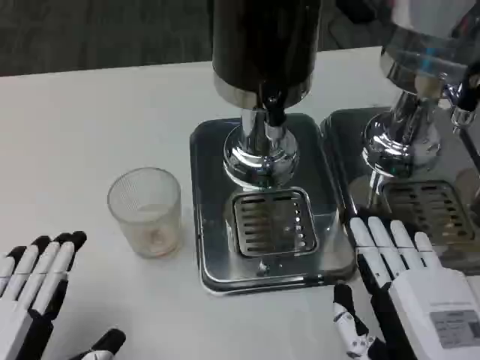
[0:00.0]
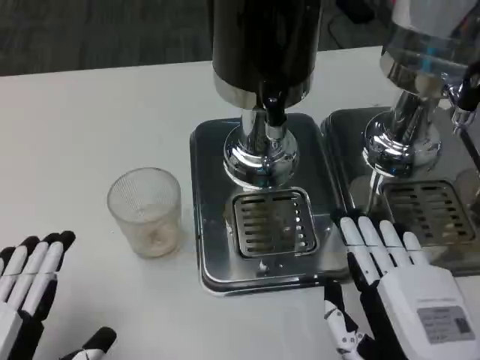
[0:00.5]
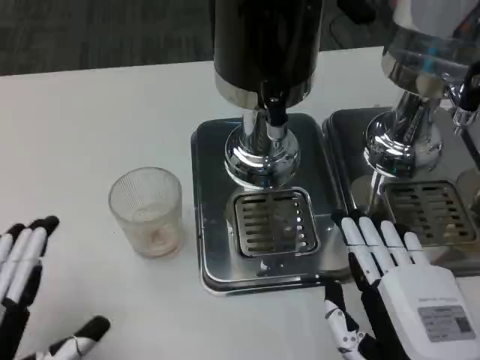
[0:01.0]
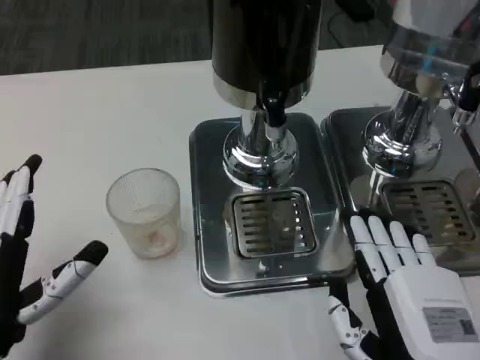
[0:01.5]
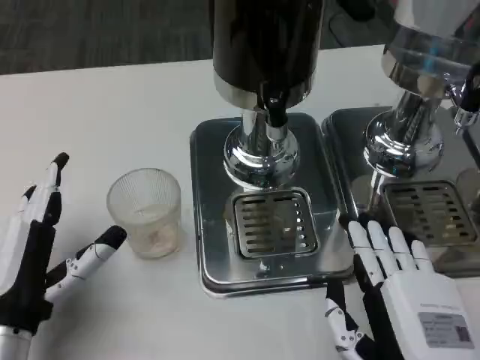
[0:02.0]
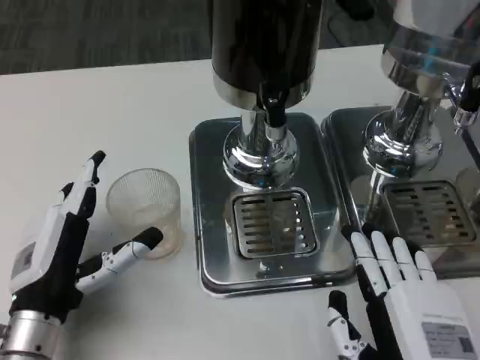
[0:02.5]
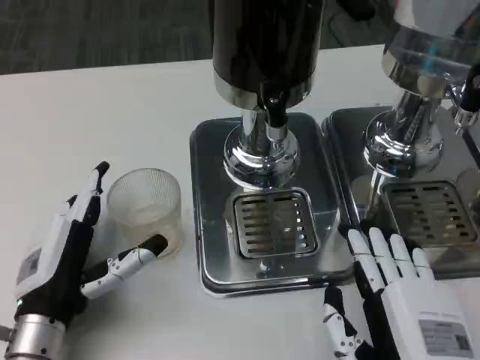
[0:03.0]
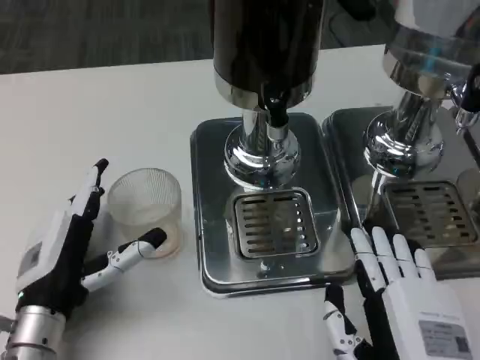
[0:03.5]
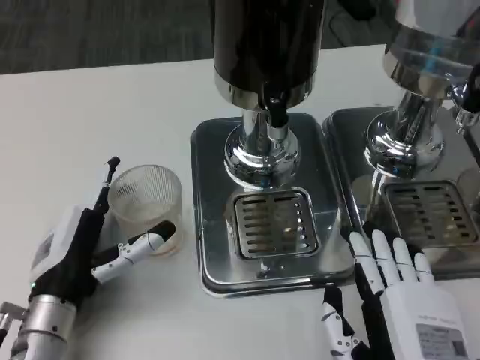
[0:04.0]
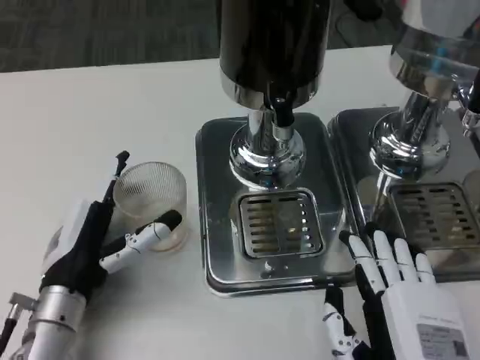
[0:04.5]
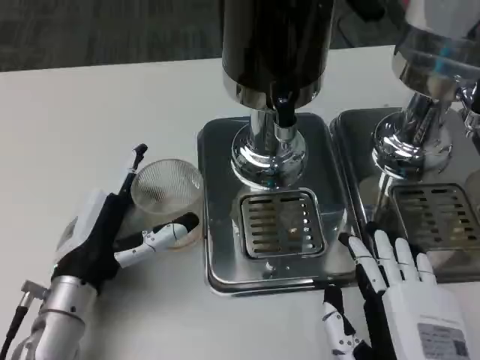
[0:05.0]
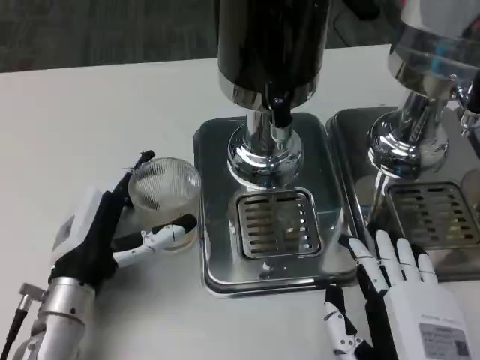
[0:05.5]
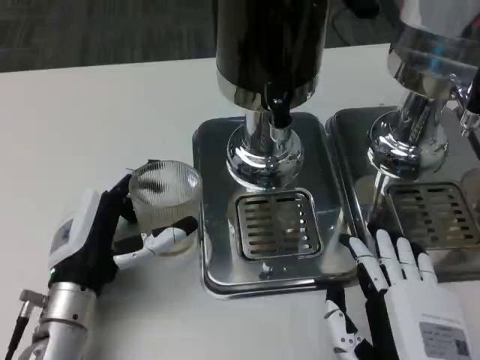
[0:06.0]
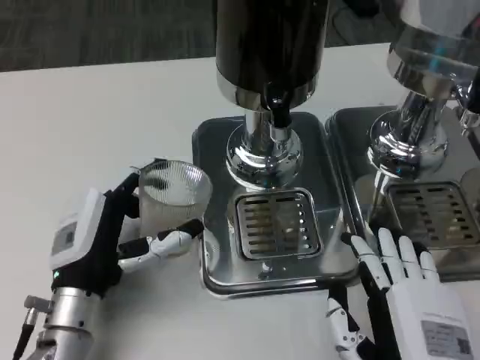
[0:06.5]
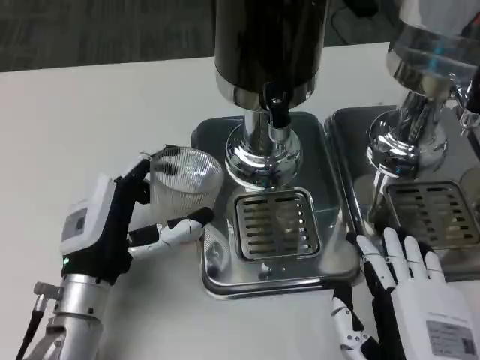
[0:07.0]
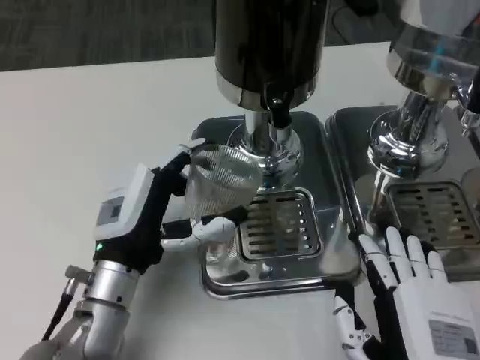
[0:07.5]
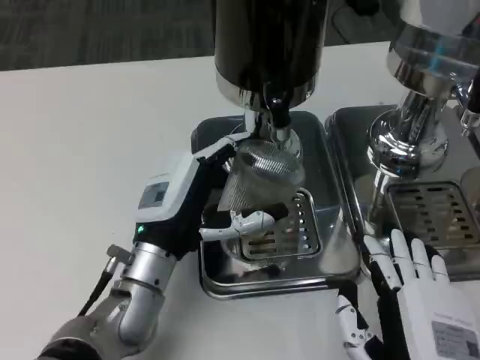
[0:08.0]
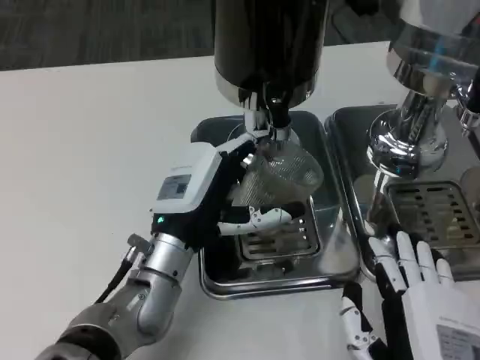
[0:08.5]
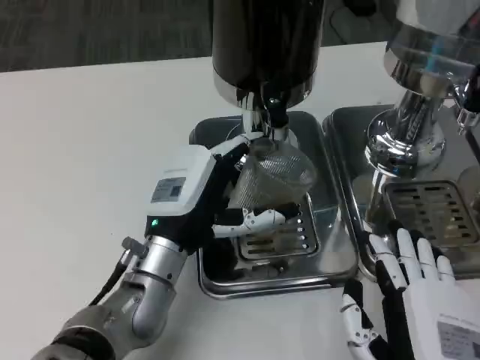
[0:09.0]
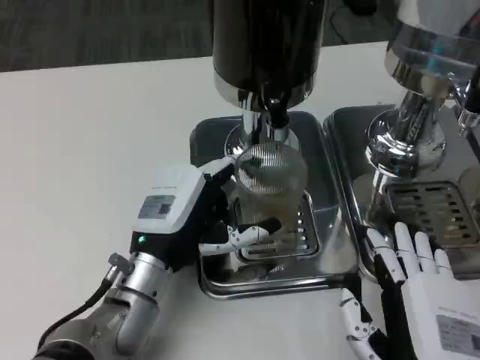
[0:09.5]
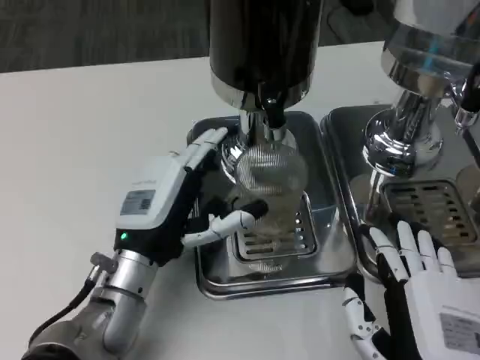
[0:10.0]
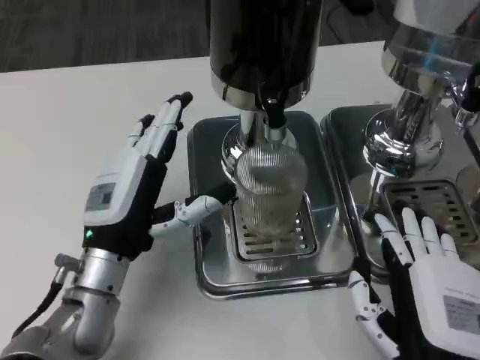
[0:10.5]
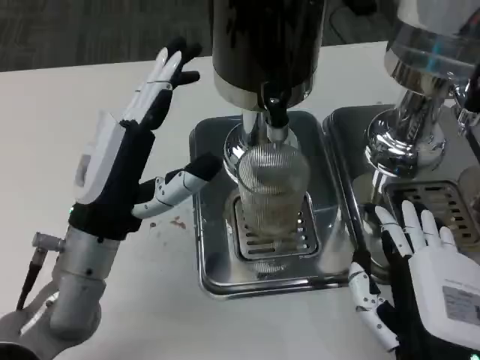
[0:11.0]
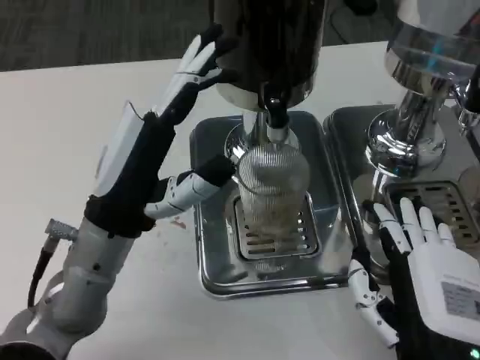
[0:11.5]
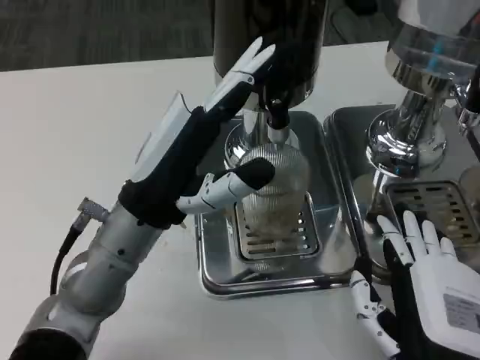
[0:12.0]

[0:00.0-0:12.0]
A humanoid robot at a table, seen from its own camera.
Task of the whole recording: Grasp the cup under the faucet to collect the drink, then remove the cup.
0:00.0 to 0:02.0: The left hand shifts approximately 10 cm forward.
0:02.0 to 0:04.0: There are only small adjustments of the hands.
0:06.0 to 0:08.0: The left hand travels to the right by some 5 cm.
0:10.0 to 0:12.0: The left hand shifts about 5 cm upward.

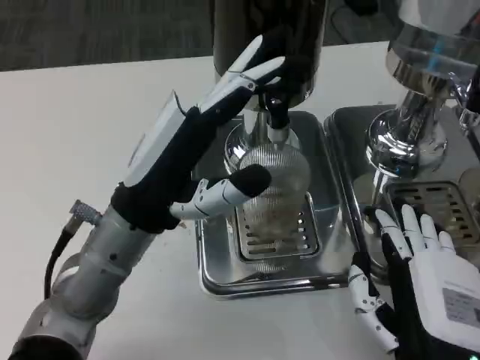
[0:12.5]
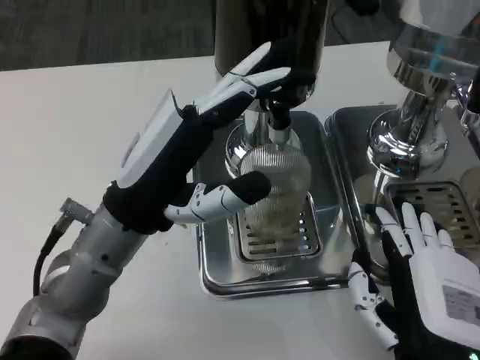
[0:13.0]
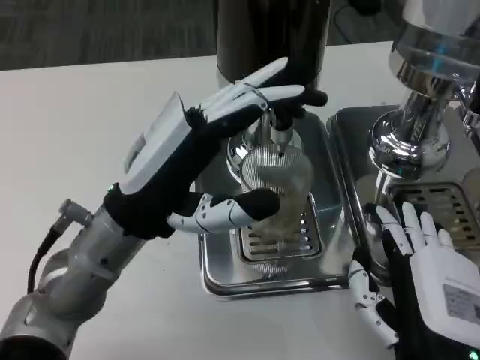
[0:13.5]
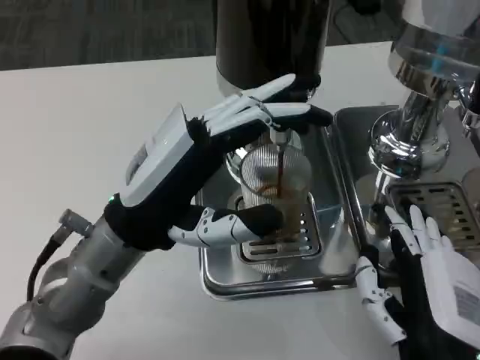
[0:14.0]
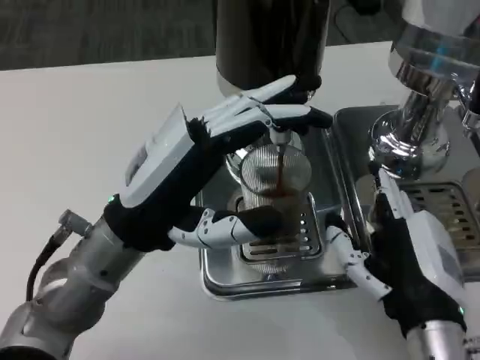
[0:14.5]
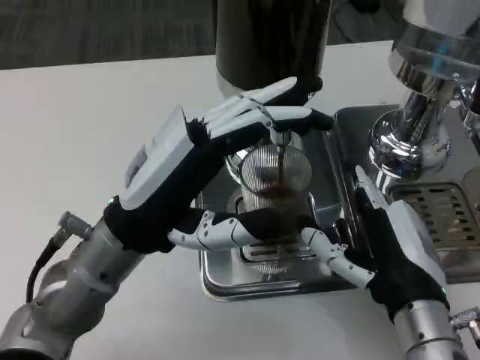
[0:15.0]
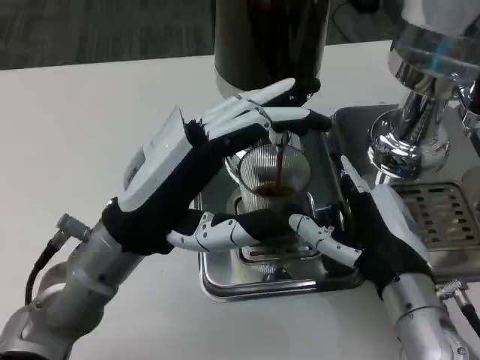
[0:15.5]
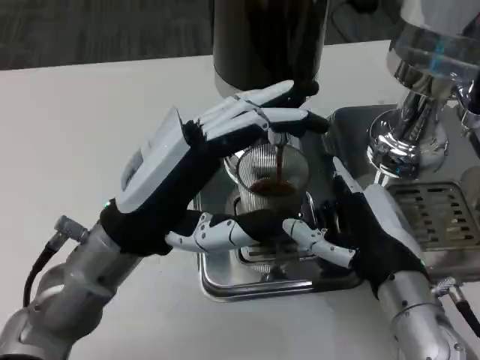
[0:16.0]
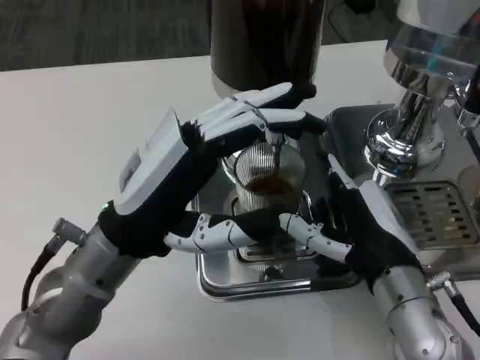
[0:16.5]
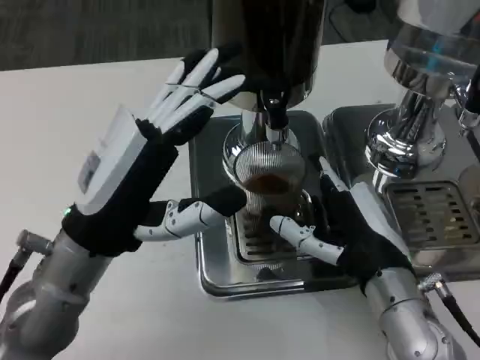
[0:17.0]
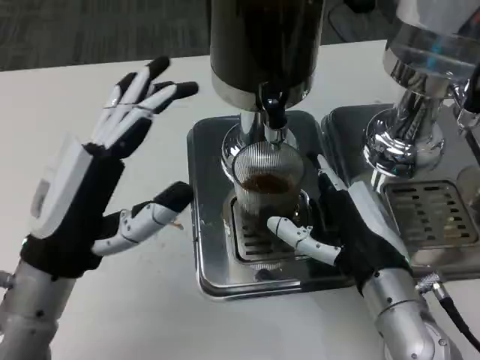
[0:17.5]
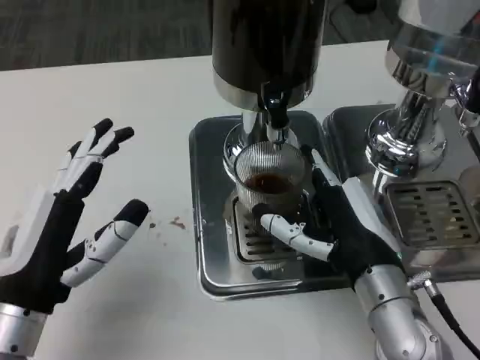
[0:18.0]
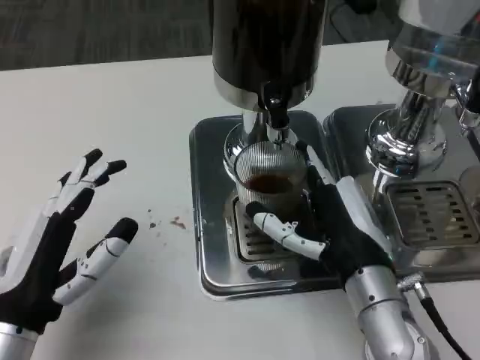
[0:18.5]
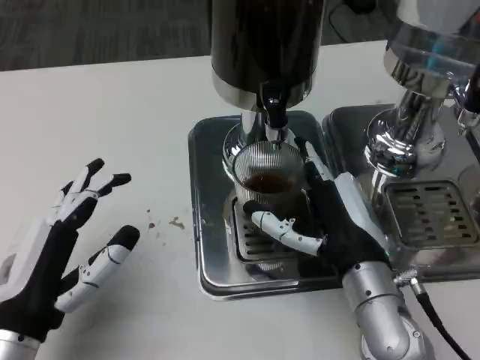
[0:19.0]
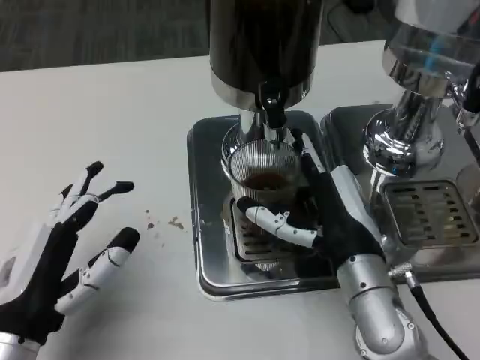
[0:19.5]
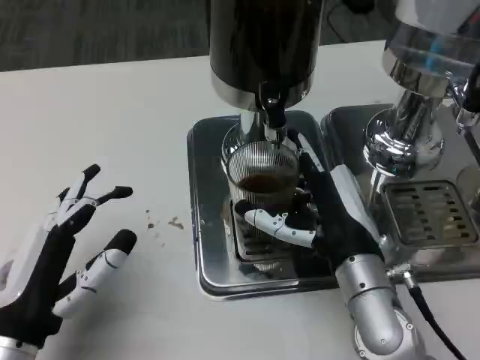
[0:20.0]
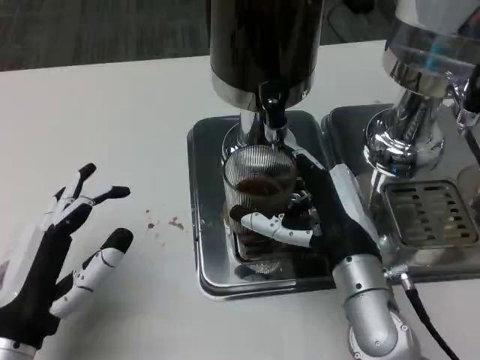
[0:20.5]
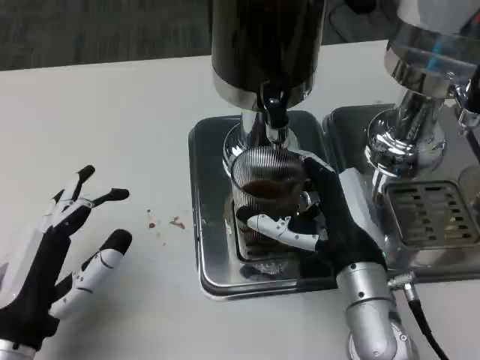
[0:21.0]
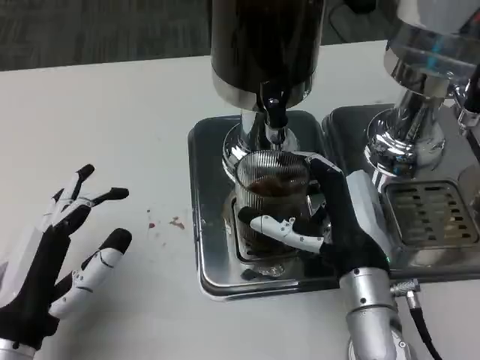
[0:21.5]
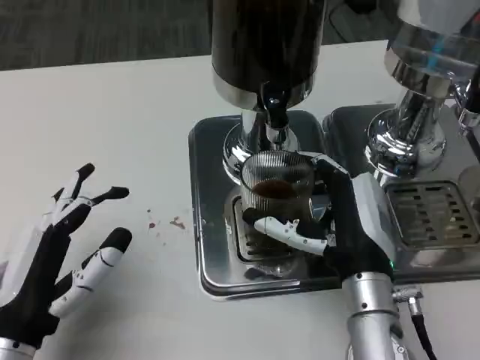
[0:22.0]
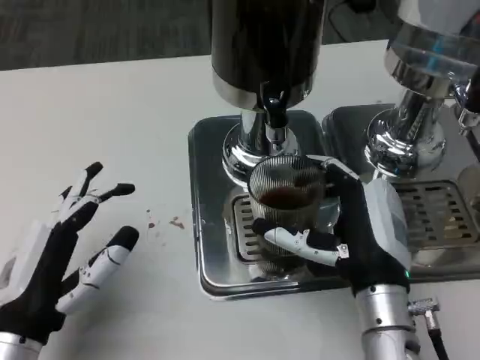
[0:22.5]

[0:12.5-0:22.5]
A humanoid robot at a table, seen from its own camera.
Task of the whole recording: Grasp the cup under the faucet to collect the drink, then remove the cup.
0:14.5 to 0:16.5: The right hand moves forward, about 5 cm.
0:16.5 to 0:18.5: The left hand shifts roughly 15 cm to the left, backward and downward.
0:18.5 to 0:22.5: The hands stay close to where they were, moving slightly.

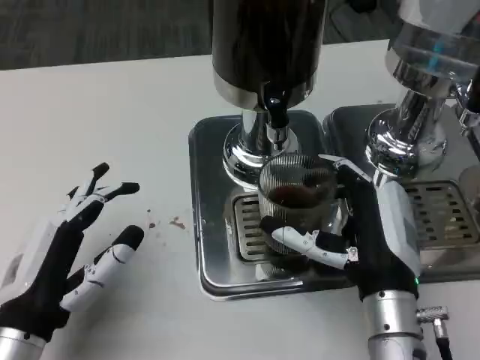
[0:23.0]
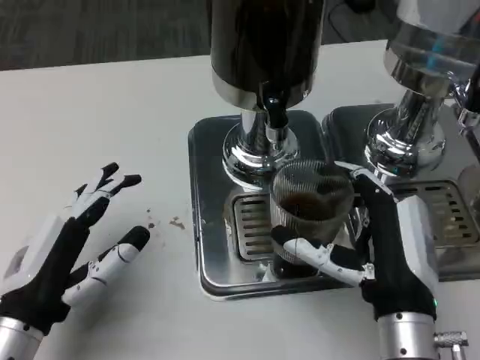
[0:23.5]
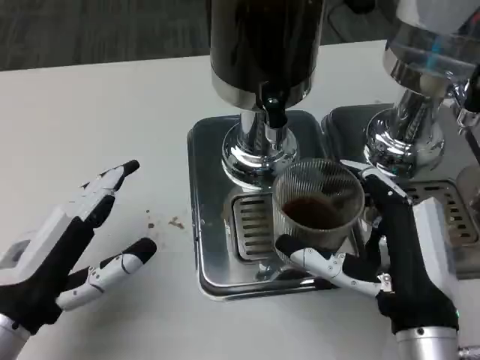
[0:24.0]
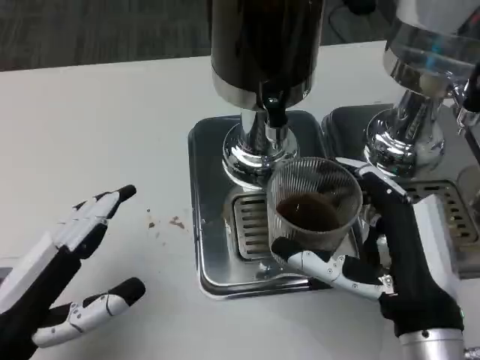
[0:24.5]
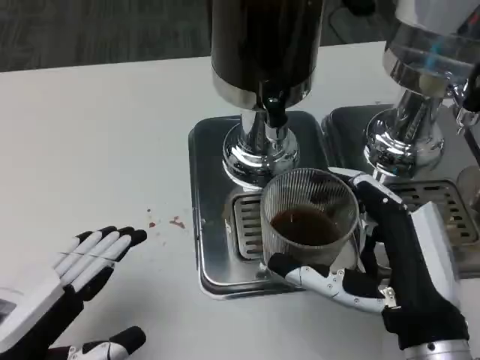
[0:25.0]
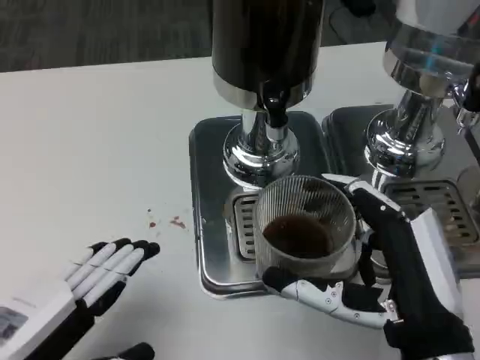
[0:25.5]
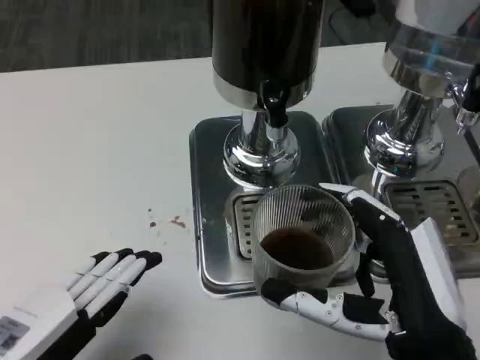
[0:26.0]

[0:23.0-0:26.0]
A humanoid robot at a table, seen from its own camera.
Task of the whole recording: Grasp the cup under the faucet to collect the drink, then remove the cup.
0:23.0 to 0:24.5: The right hand shifts by about 5 cm, while the left hand shifts by approximately 5 cm.

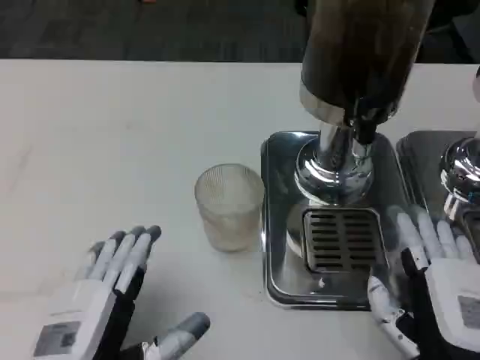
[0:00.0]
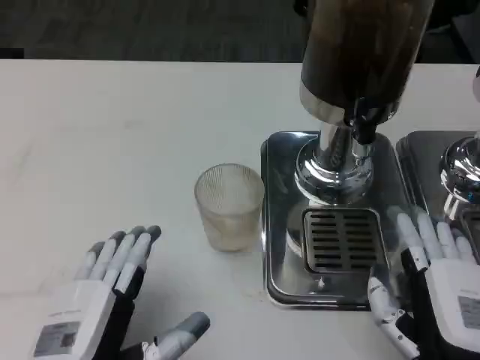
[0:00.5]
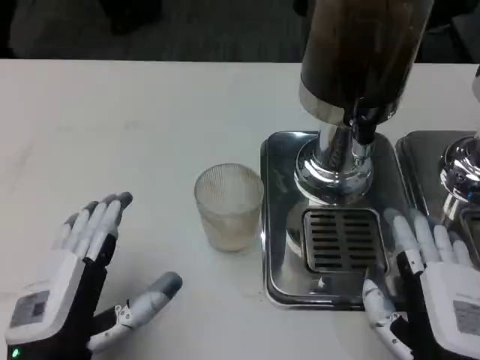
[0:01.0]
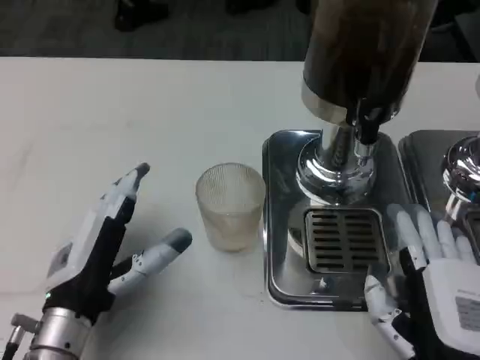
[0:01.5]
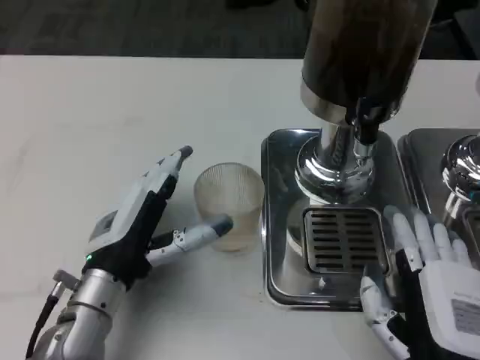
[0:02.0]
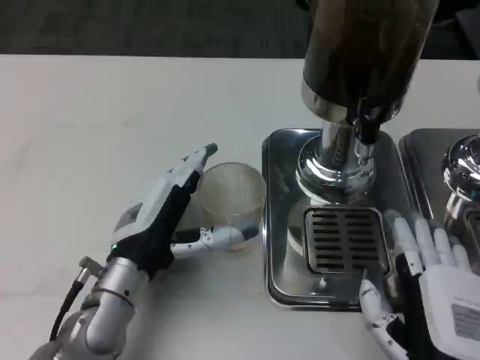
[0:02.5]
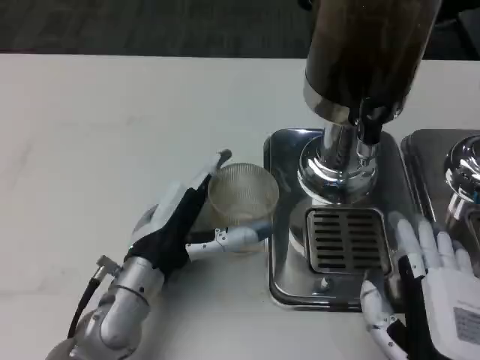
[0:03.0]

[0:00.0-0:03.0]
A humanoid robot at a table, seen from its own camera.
Task of the whole recording: Grasp the cup under the faucet to collect the drink, then remove the cup.
0:00.0 to 0:01.5: The left hand is displaced forward by roughly 10 cm.
0:01.5 to 0:03.0: The left hand heads forward and to the right, covering some 10 cm.
